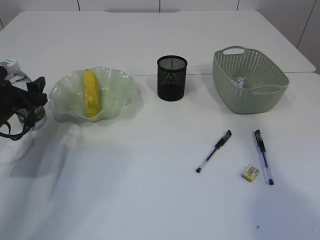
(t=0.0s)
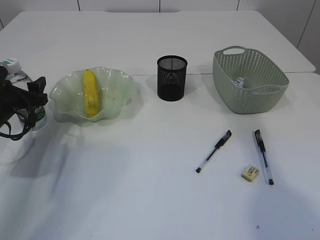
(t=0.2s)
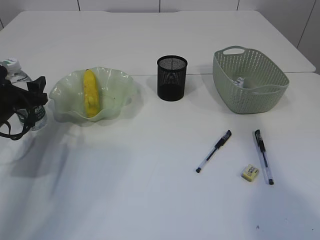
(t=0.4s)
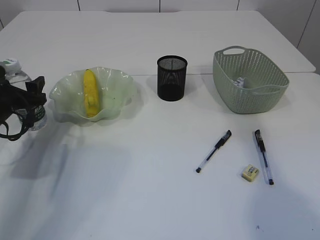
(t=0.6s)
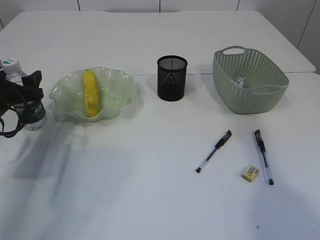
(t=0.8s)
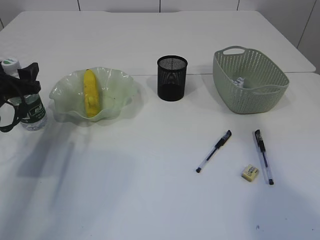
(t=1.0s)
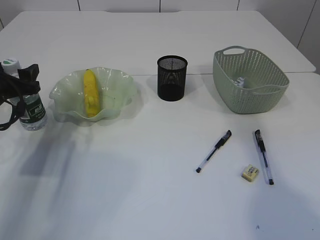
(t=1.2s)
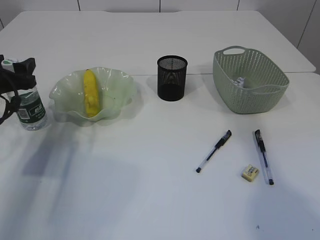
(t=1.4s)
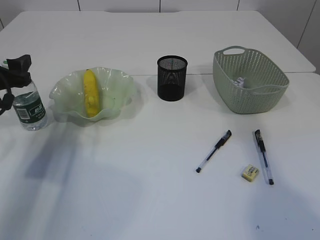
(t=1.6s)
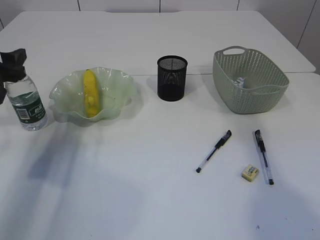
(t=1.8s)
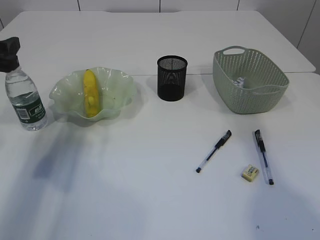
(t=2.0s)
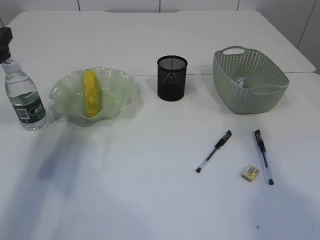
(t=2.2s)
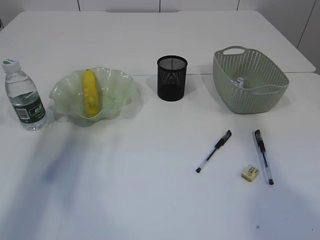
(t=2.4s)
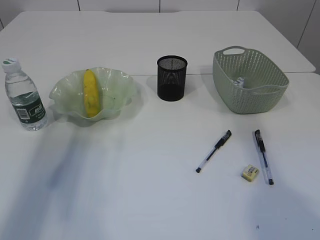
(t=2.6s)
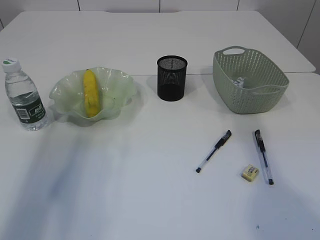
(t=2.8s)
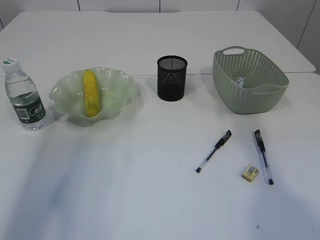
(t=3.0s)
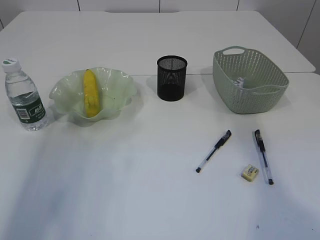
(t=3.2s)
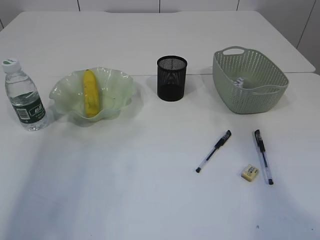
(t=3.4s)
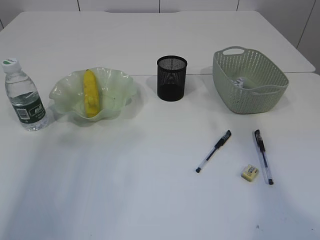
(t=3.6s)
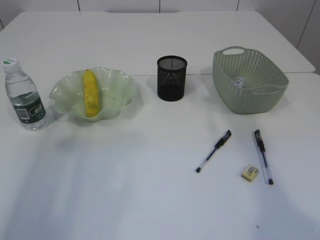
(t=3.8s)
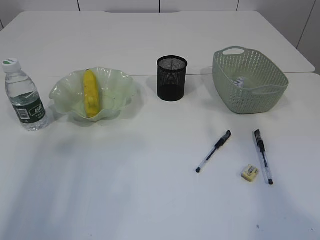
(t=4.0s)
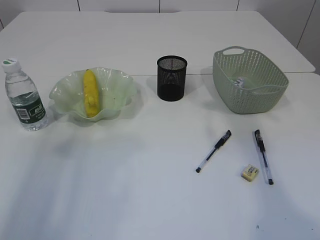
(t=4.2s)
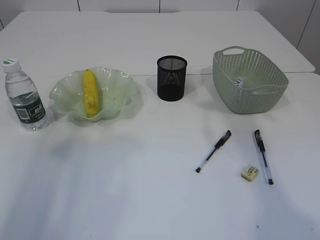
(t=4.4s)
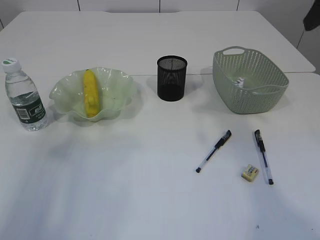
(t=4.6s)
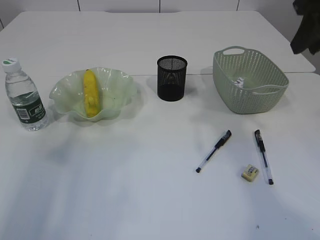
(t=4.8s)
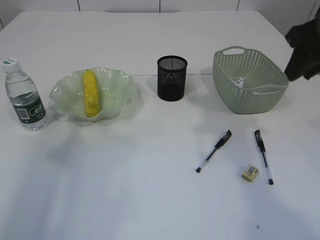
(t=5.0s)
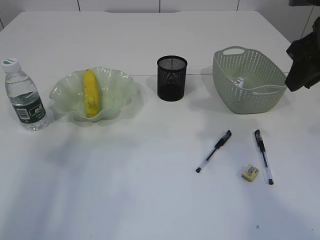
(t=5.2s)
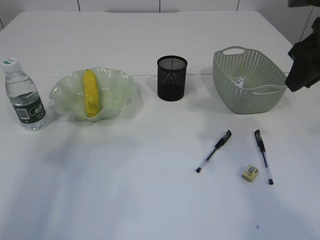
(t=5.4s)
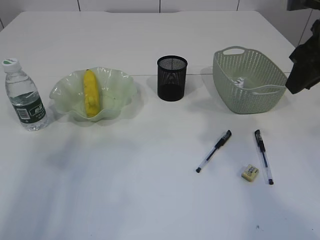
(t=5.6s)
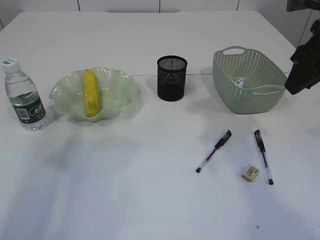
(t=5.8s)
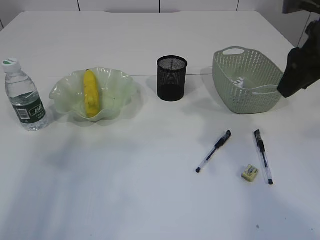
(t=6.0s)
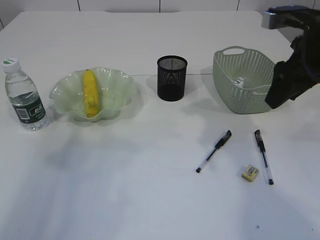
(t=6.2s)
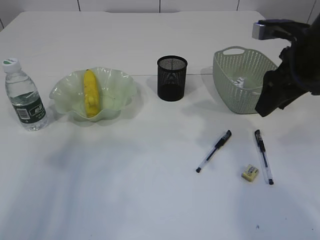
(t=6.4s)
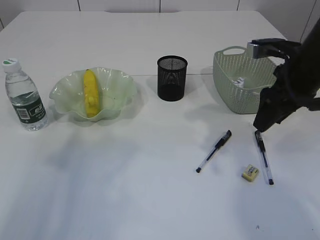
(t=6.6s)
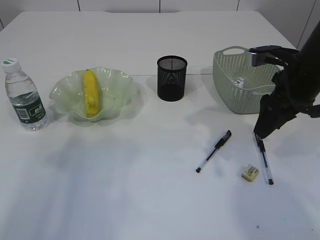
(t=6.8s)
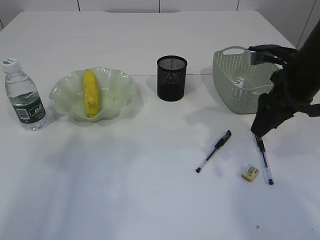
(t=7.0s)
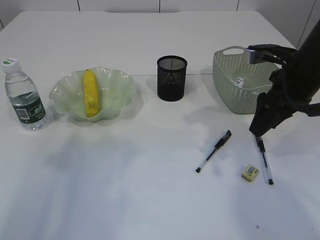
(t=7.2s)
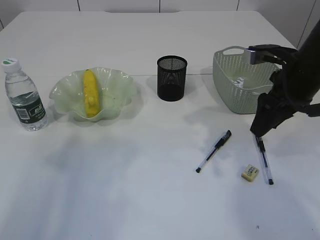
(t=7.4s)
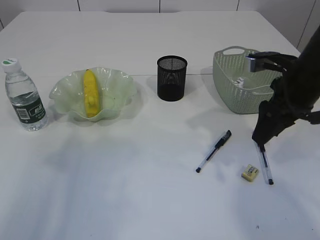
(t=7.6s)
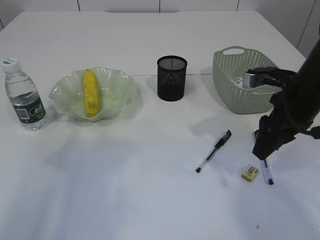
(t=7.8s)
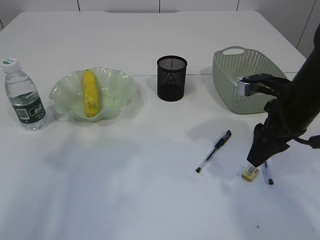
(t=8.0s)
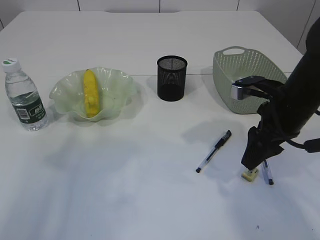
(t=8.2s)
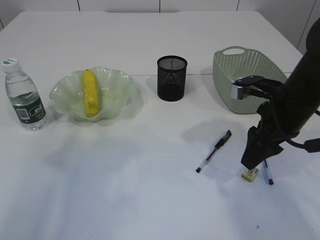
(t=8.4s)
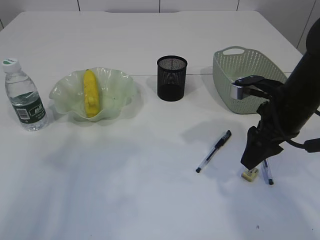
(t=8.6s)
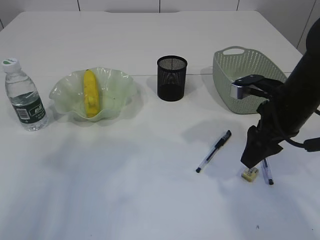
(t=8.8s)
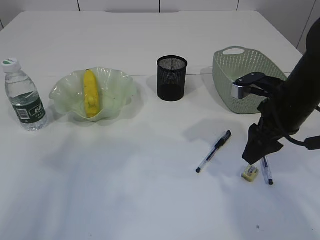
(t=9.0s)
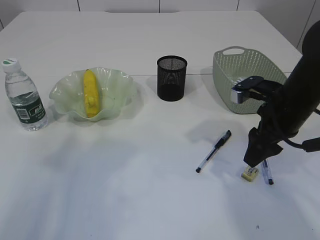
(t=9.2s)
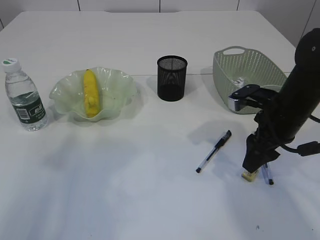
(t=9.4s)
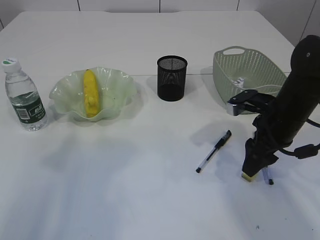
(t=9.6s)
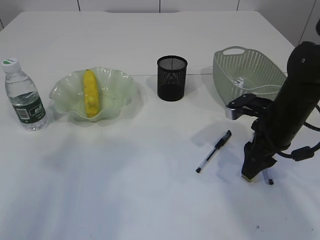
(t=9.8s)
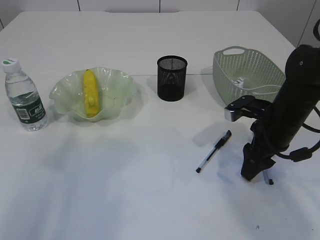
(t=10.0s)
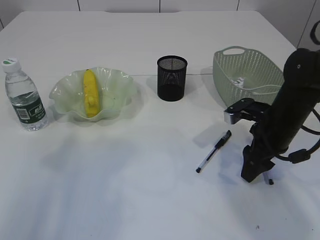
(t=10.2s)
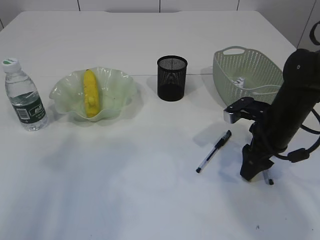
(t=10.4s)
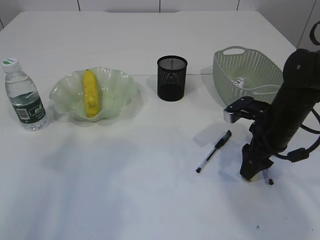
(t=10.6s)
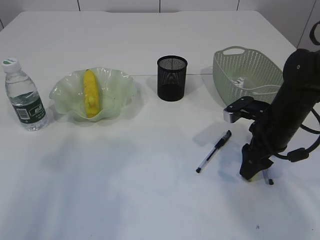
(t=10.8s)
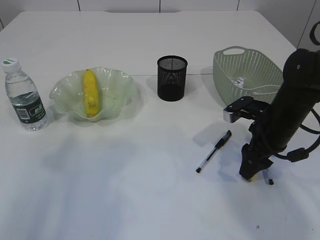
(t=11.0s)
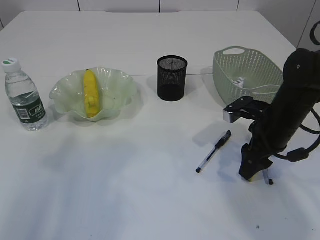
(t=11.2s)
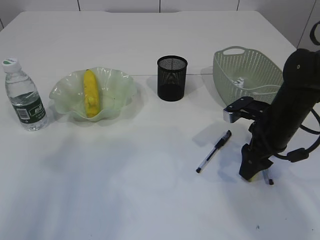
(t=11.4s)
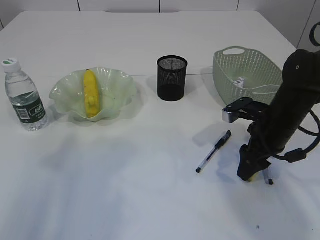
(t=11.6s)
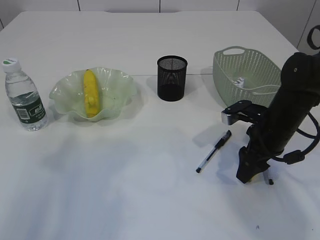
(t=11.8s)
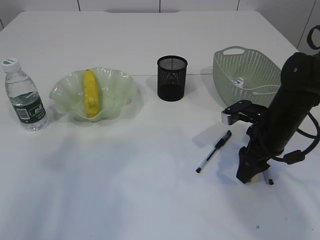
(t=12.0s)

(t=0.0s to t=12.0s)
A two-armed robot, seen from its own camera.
t=0.0s - t=1.6s: The left gripper is displaced upward by some 5 cm.
t=1.6s - t=3.0s: The left gripper shifts approximately 20 cm upward and backward.
t=4.4s - t=6.0s: The right gripper goes roughly 10 cm downward.
t=6.0s - t=7.6s: The right gripper is displaced downward by approximately 10 cm.
t=7.6s - t=9.0s: There are only small adjustments of the grippers.
t=9.0s - t=10.4s: The right gripper travels downward by about 5 cm.
t=10.4s - t=12.0s: Neither gripper changes place.

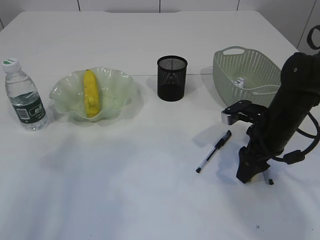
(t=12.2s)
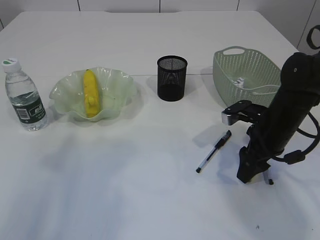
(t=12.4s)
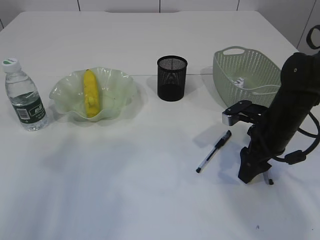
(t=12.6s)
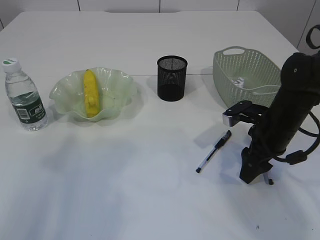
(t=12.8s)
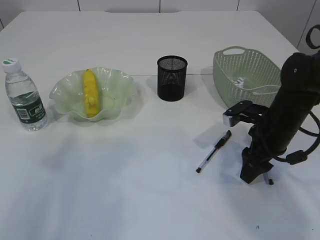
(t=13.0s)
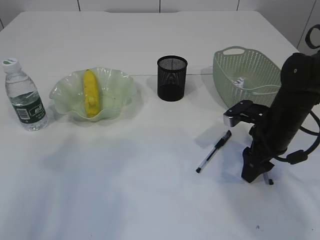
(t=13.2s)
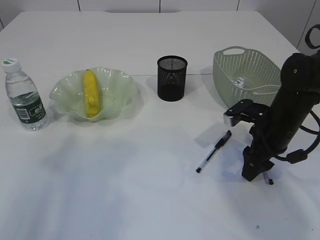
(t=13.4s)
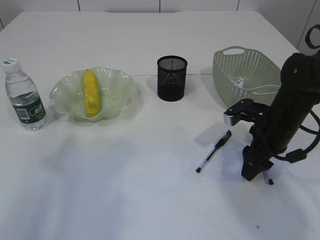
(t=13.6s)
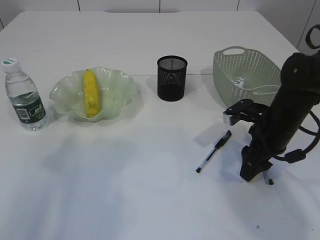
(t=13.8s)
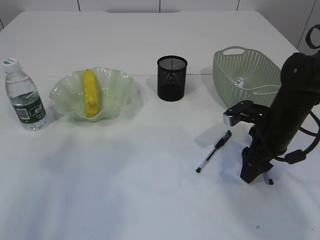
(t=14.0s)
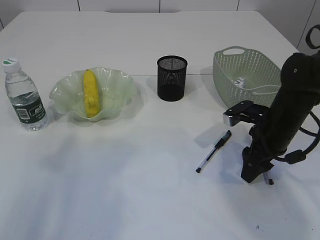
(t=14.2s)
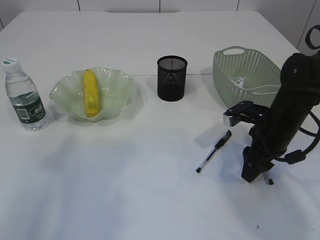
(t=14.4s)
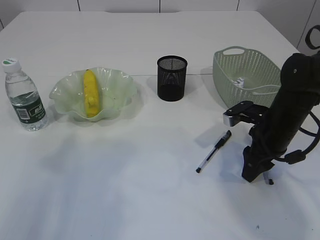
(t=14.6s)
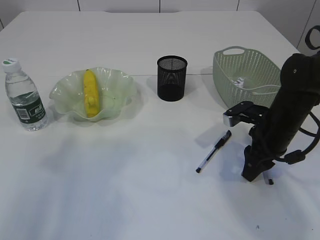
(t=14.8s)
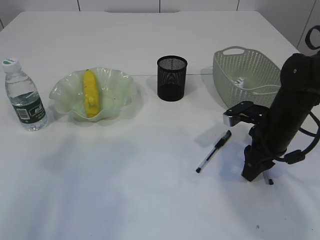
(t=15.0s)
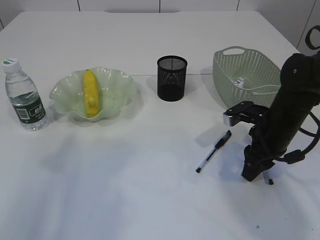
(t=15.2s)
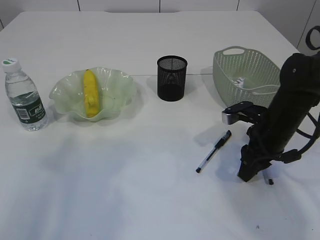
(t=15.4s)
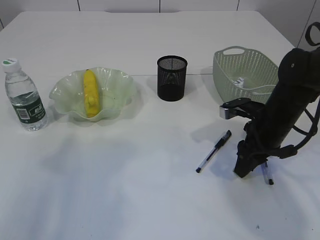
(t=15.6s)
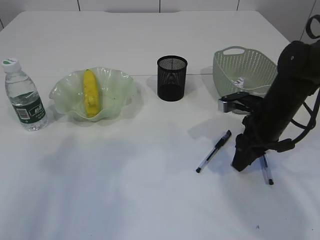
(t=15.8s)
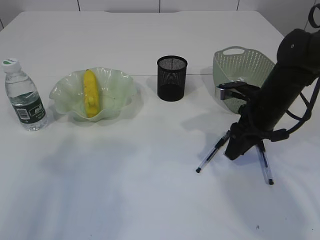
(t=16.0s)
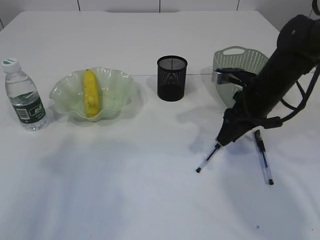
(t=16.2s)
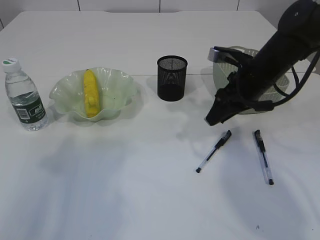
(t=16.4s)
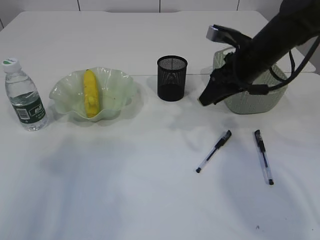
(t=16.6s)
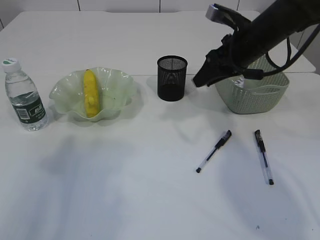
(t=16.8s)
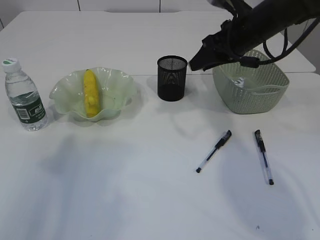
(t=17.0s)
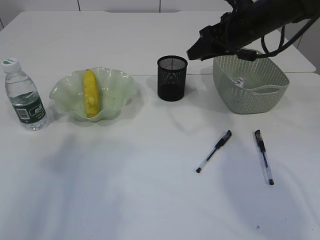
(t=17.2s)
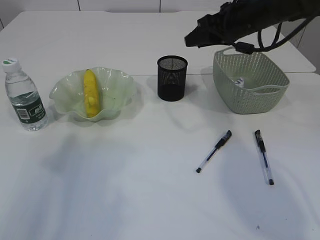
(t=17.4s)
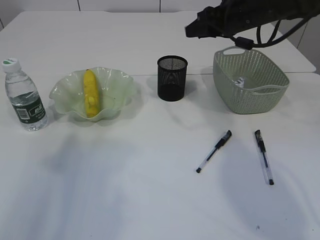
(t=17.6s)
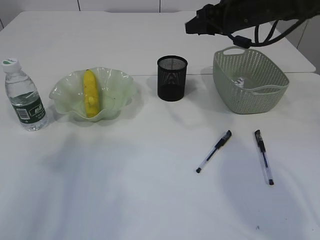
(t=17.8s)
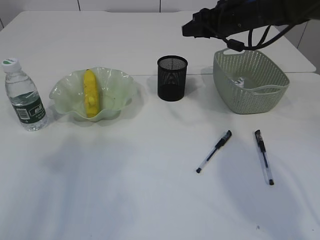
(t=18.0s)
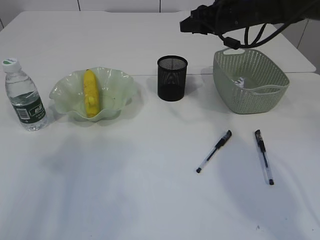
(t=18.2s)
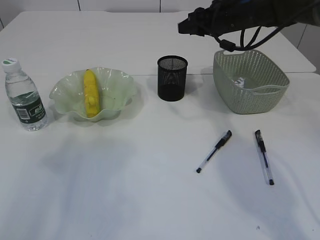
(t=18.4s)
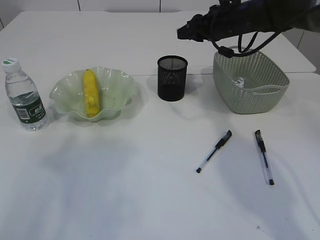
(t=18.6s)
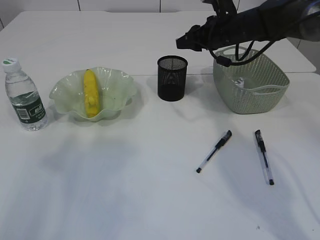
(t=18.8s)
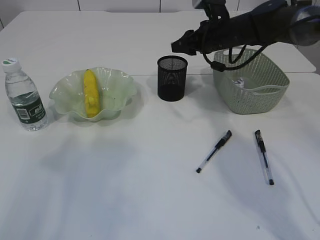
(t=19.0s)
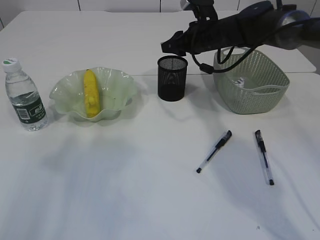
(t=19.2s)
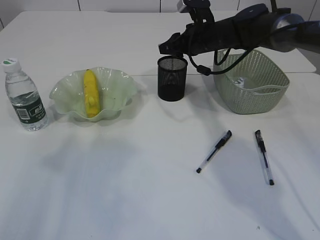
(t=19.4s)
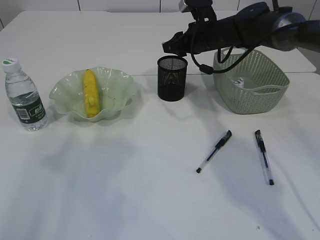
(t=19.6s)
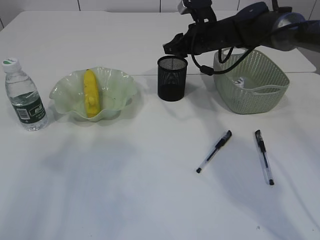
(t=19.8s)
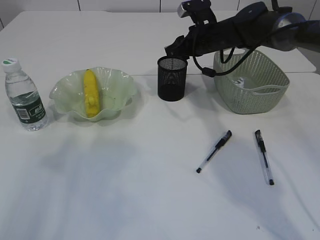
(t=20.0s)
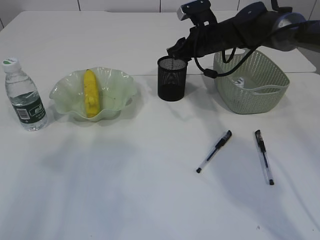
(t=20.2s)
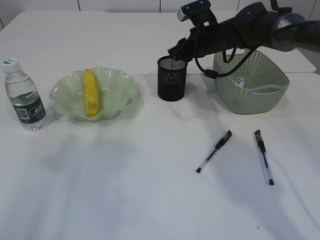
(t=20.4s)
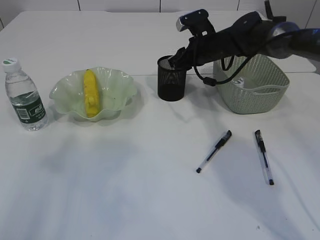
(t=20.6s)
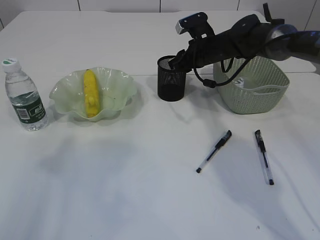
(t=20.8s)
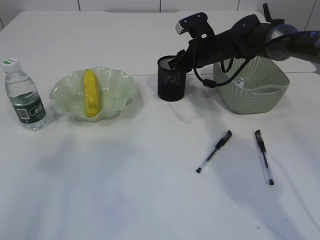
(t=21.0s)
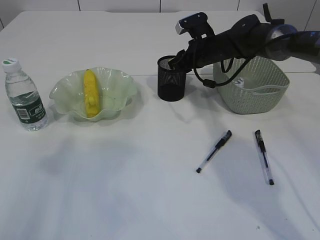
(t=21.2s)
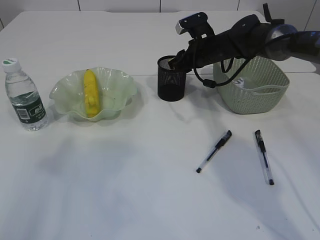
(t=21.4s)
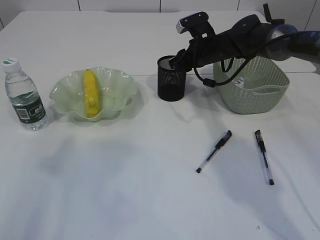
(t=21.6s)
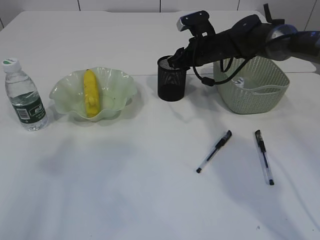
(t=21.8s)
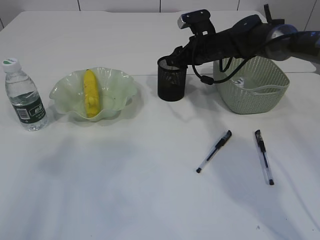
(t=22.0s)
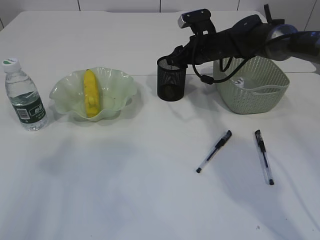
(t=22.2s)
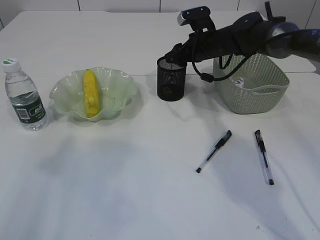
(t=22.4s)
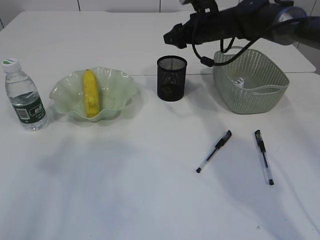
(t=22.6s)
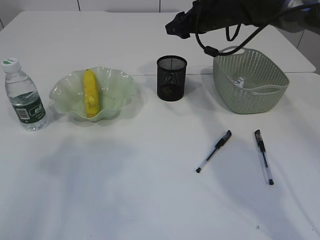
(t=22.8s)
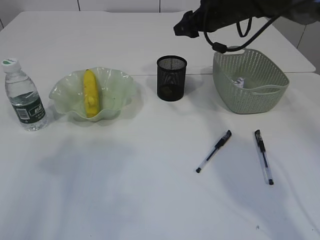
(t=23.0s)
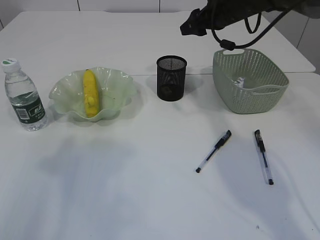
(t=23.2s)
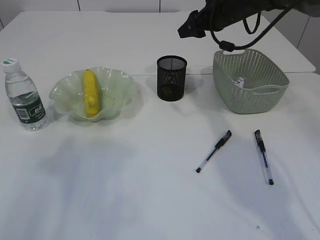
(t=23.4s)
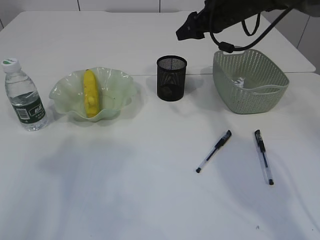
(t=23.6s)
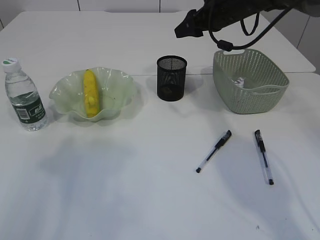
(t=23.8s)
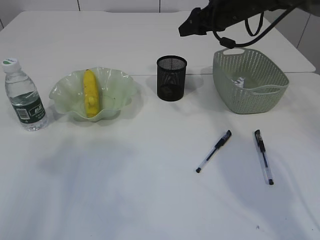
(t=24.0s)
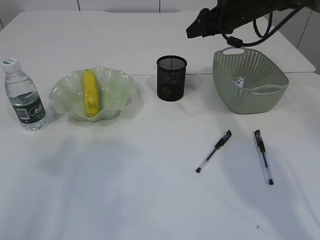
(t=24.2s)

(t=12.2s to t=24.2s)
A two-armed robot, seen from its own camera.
Step, t=12.2s - t=16.0s: Pick up the eraser.
Step, t=16.2s - t=22.6s: Place the eraser into the pen holder.
t=12.2s - t=13.8s: The two grippers keep their place.
t=13.8s - t=15.2s: The right gripper closes up.
t=15.2s - t=16.6s: The right gripper shifts some 10 cm upward and forward.
t=16.6s - t=18.2s: The right gripper shifts roughly 10 cm forward.
t=18.2s - t=19.8s: The right gripper shifts approximately 5 cm downward.
t=19.8s - t=21.2s: The grippers make only small movements.
t=21.2s - t=22.6s: The right gripper opens.
t=22.6s - t=24.2s: The right gripper travels to the right by some 5 cm.
